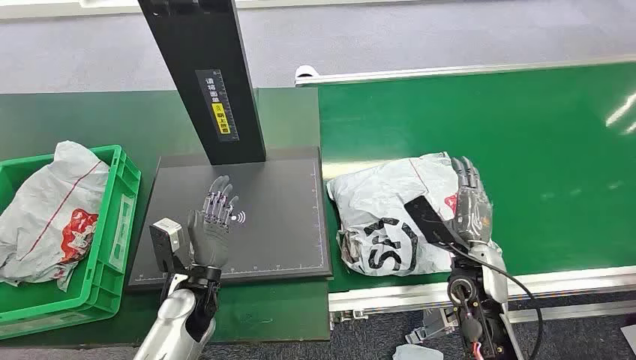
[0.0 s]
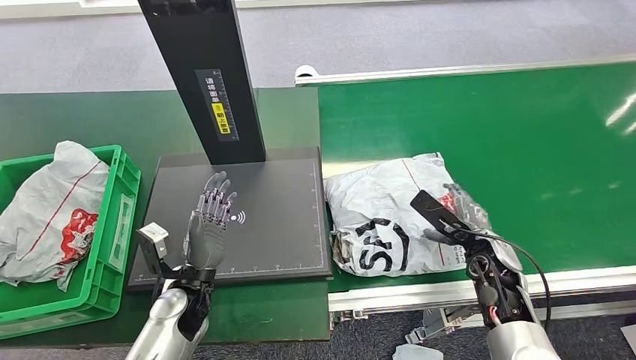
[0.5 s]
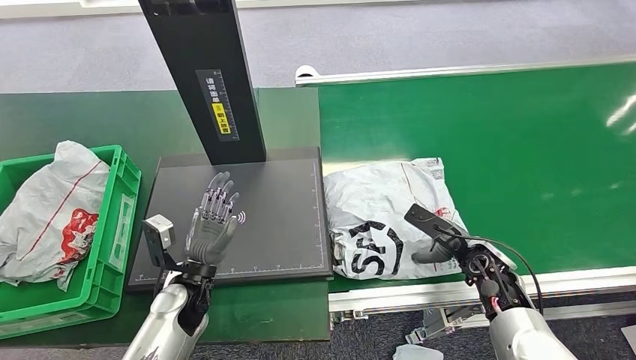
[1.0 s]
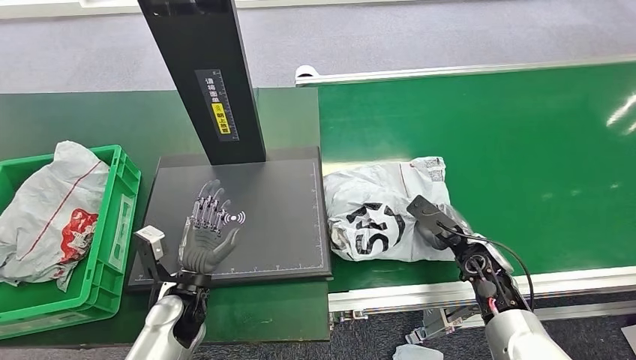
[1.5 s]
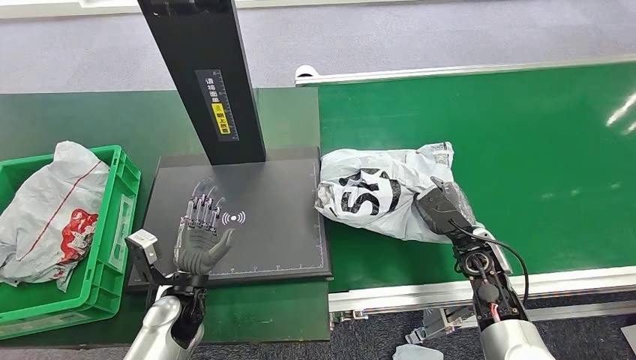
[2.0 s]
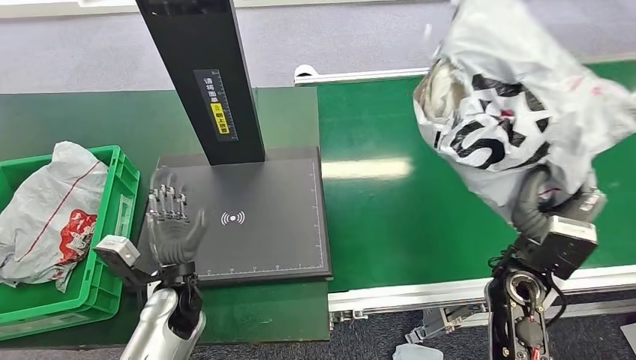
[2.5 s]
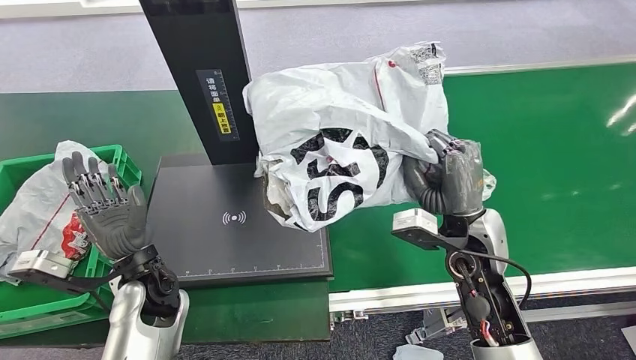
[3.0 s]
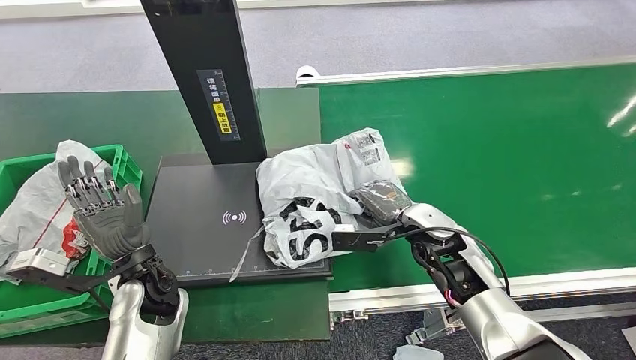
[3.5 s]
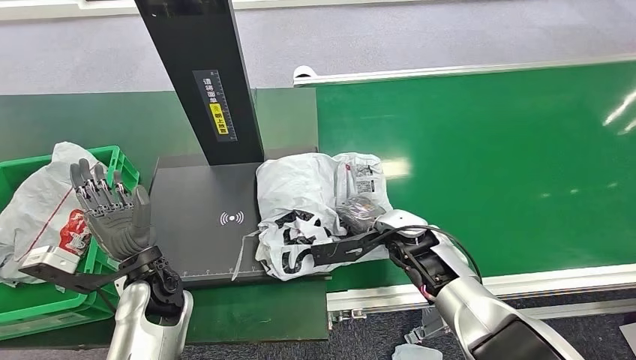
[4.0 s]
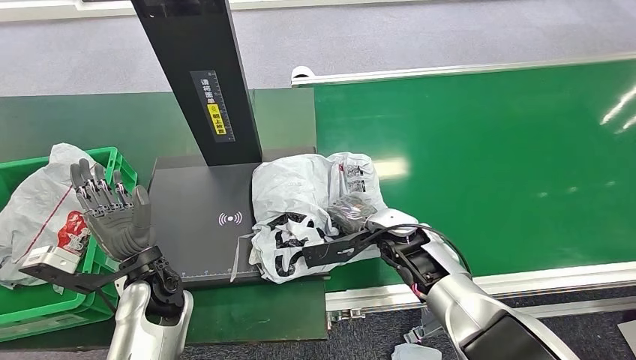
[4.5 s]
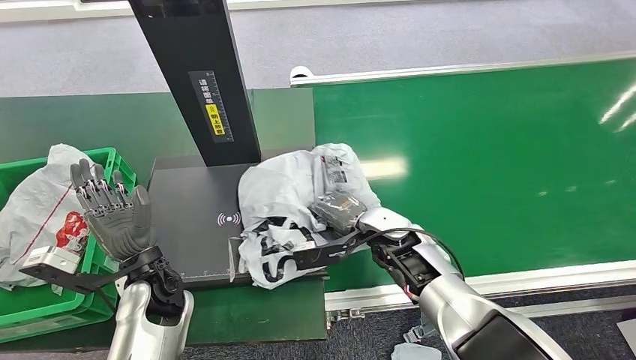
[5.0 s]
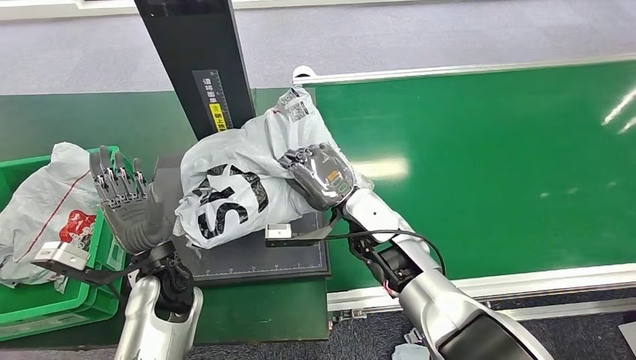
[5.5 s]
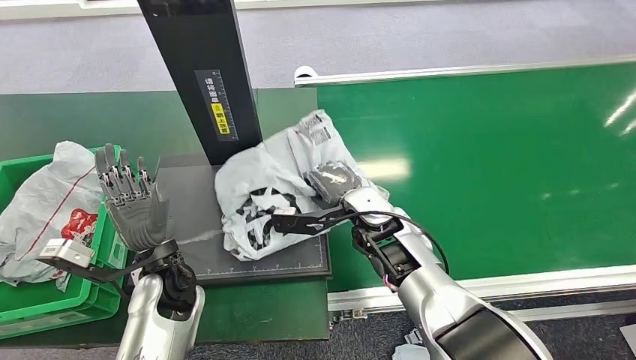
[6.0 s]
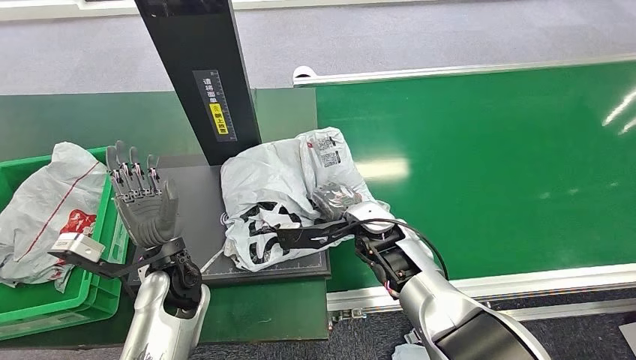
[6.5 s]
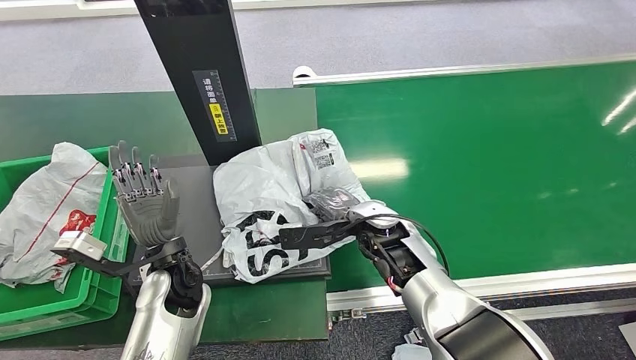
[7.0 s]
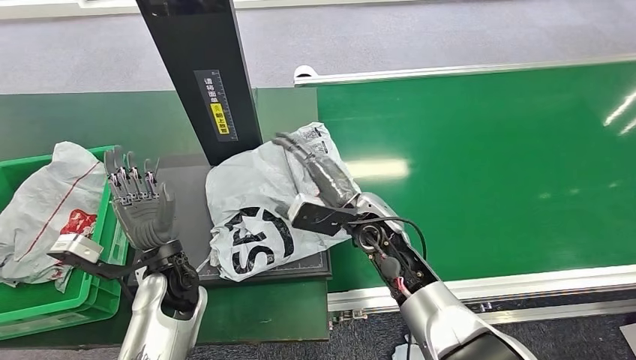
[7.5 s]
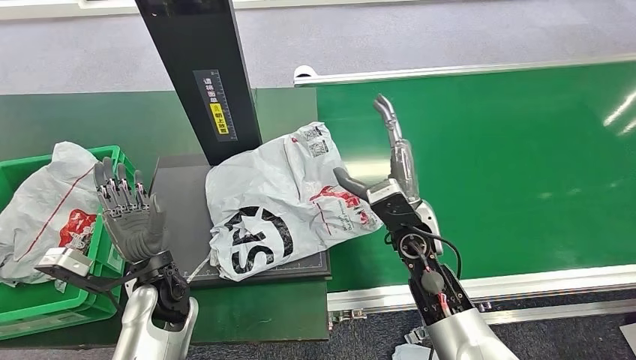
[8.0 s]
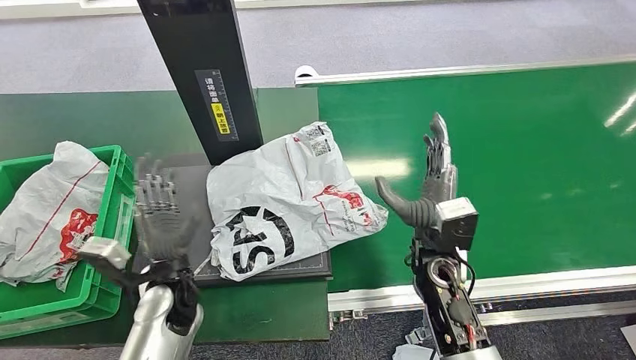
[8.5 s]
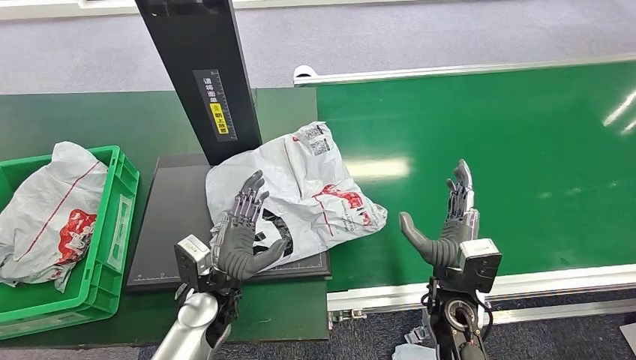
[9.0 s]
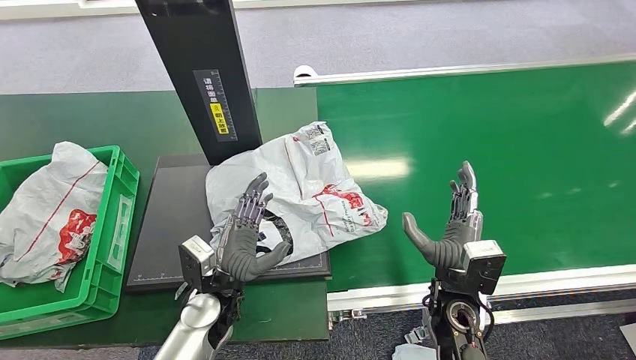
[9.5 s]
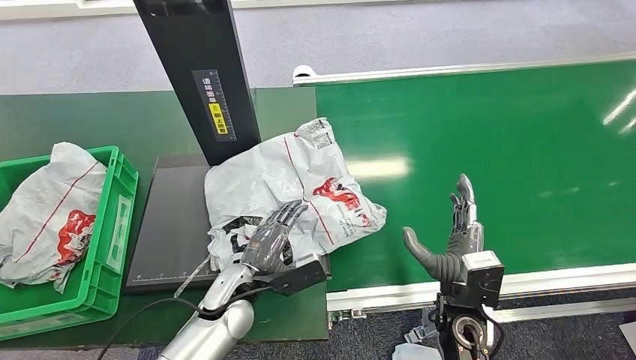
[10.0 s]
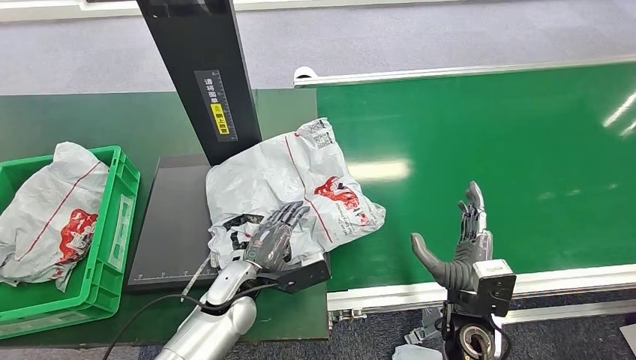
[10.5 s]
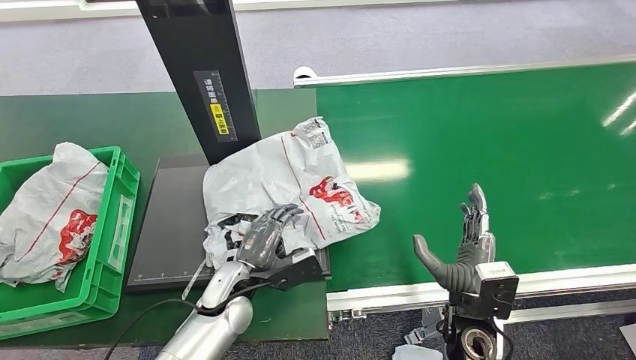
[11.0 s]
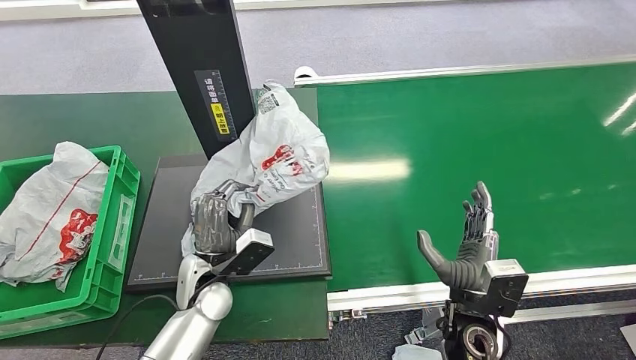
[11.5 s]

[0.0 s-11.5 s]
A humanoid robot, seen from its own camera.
Step, 0.0 to 2.0 s: Pick up the package from the conveyor belt.
Step, 2.5 to 7.5 s: Place the package onto the inbound machine.
7.5 to 9.5 s: The right hand heads to the right, backward and downward, covering roughly 15 cm, while the left hand is displaced to the right and downward by some 5 cm.

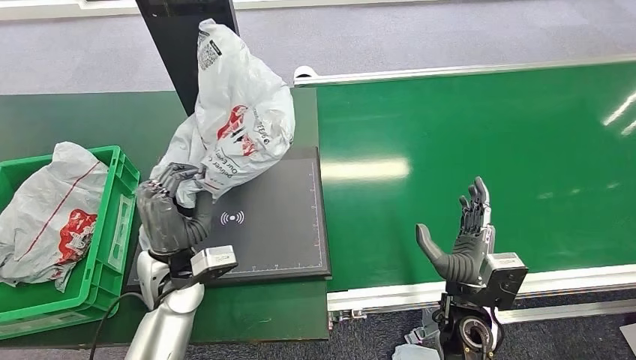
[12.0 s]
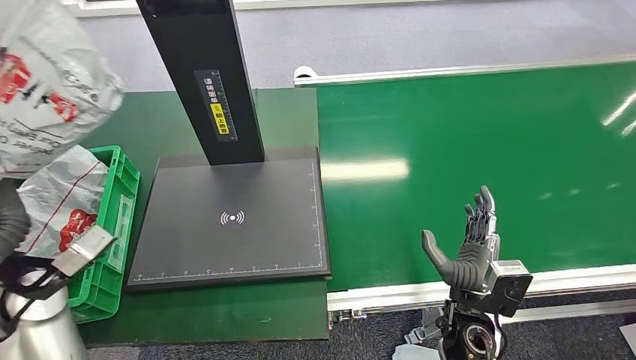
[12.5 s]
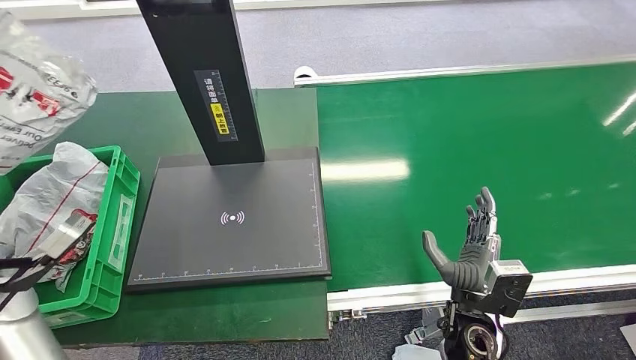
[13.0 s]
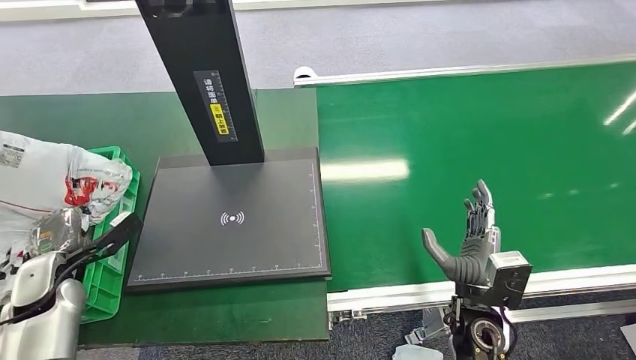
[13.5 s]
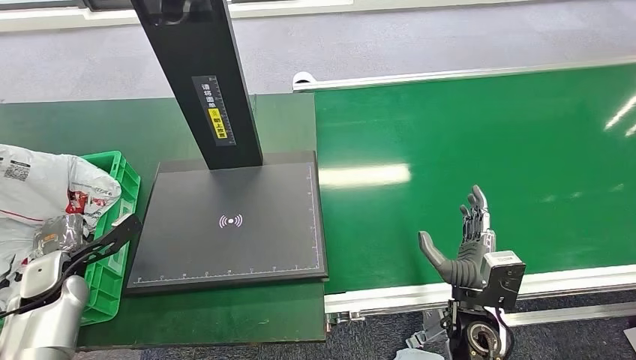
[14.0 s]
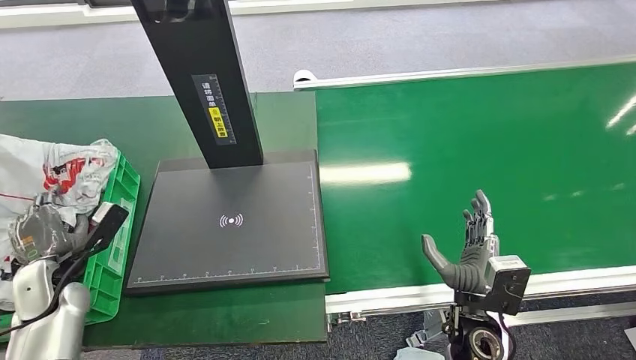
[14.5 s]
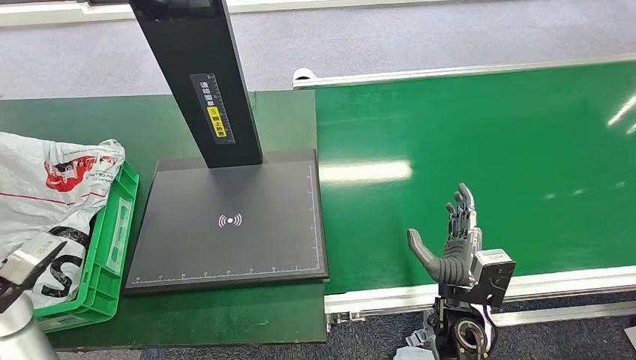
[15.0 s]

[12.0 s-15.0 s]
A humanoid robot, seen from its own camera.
Step, 12.5 to 15.0 s: Place the package into the parcel locker.
13.5 to 15.0 s: The left hand is displaced upward by about 15 cm.
